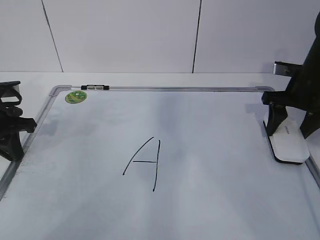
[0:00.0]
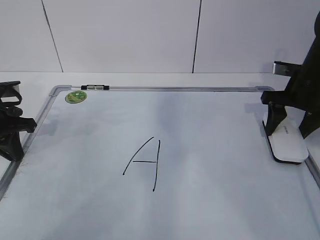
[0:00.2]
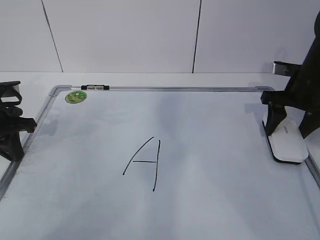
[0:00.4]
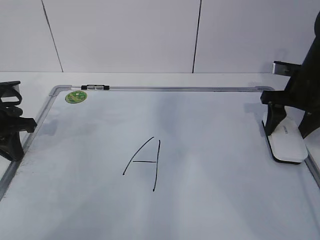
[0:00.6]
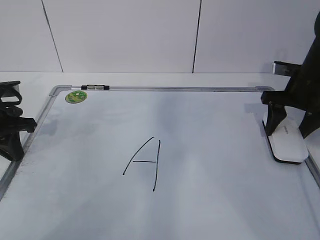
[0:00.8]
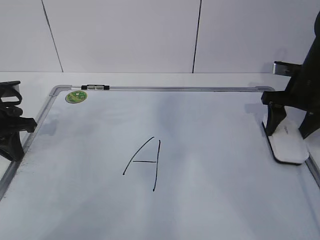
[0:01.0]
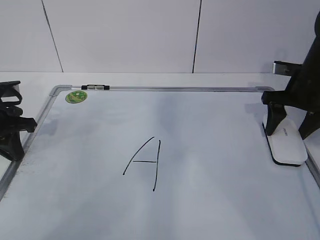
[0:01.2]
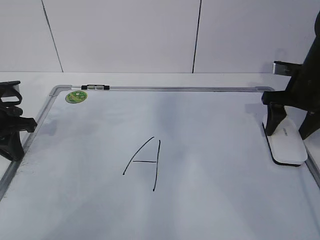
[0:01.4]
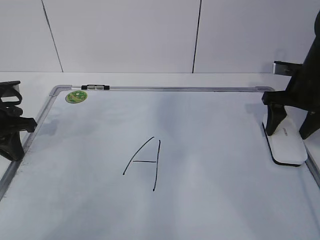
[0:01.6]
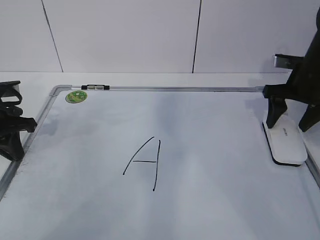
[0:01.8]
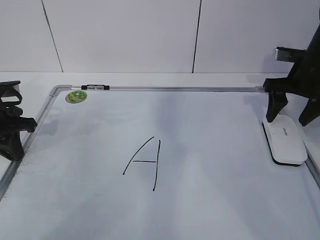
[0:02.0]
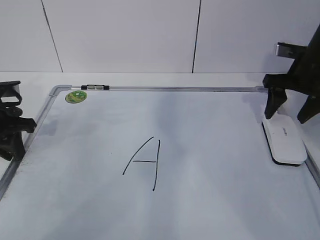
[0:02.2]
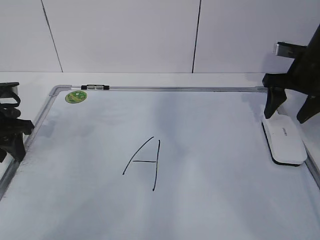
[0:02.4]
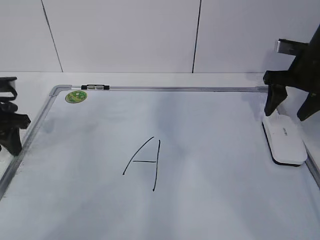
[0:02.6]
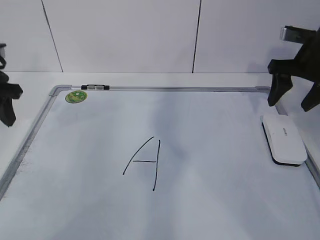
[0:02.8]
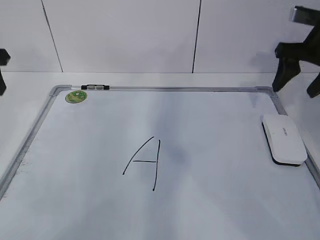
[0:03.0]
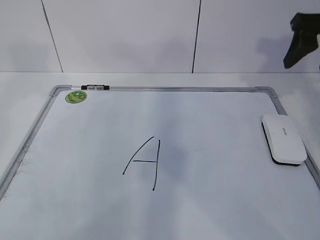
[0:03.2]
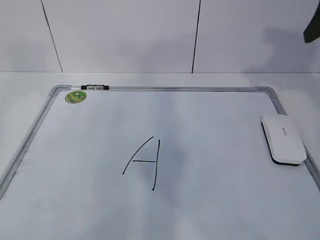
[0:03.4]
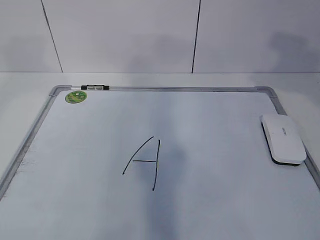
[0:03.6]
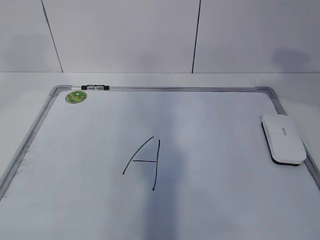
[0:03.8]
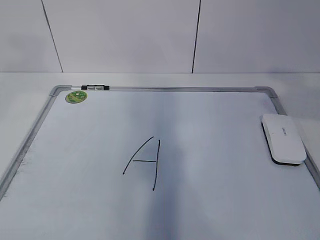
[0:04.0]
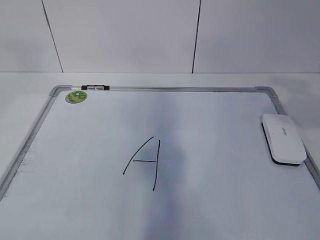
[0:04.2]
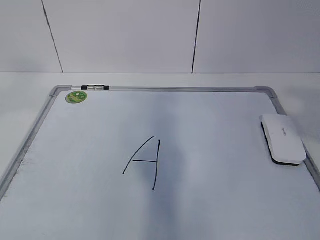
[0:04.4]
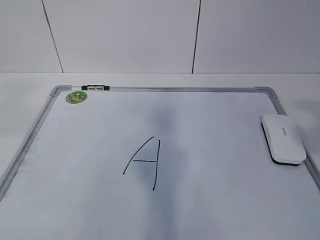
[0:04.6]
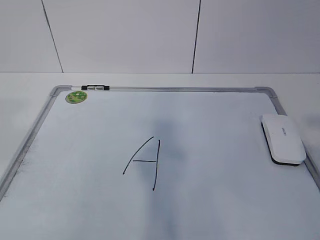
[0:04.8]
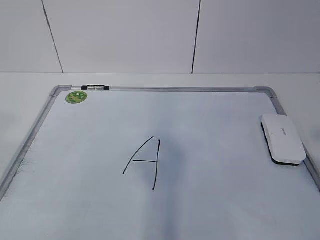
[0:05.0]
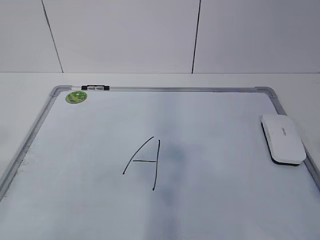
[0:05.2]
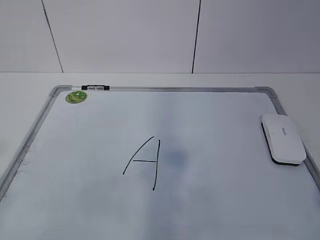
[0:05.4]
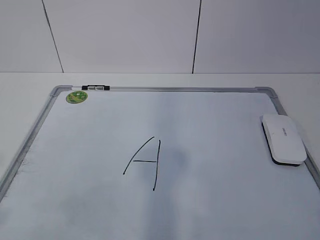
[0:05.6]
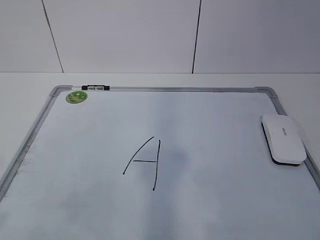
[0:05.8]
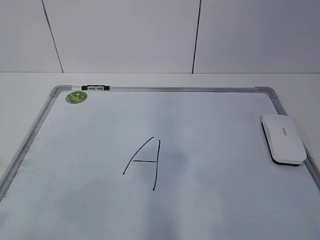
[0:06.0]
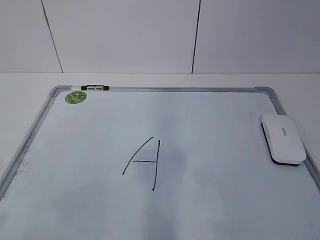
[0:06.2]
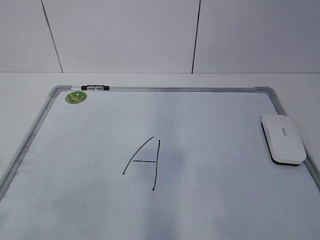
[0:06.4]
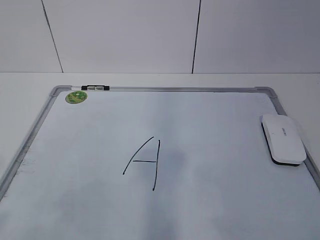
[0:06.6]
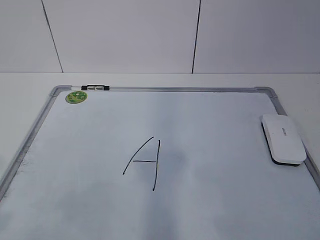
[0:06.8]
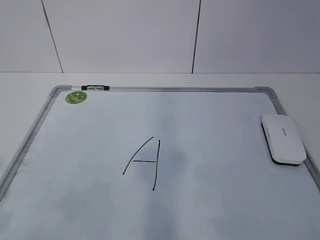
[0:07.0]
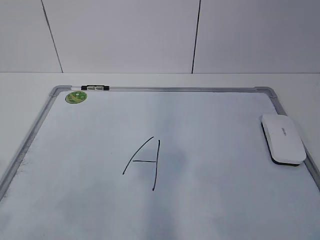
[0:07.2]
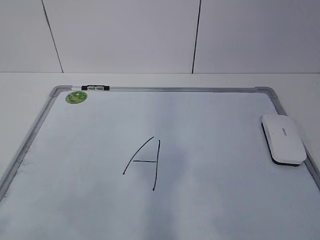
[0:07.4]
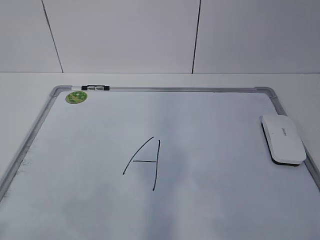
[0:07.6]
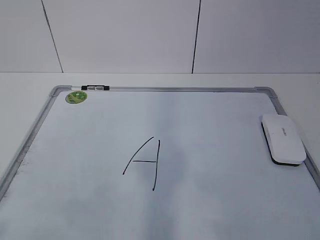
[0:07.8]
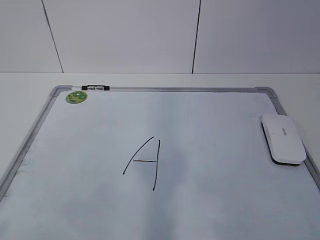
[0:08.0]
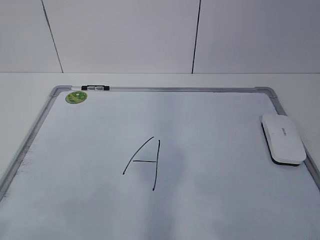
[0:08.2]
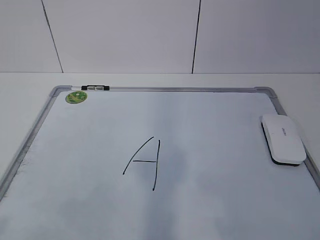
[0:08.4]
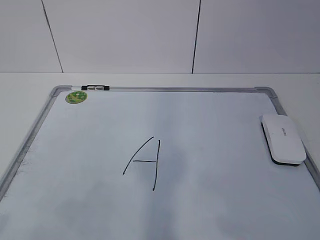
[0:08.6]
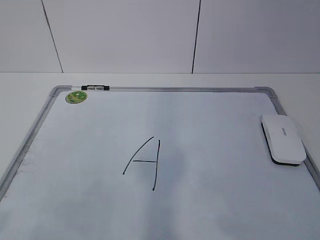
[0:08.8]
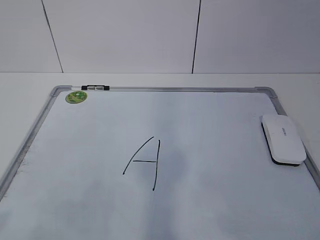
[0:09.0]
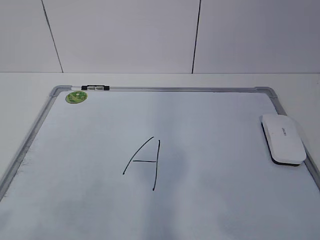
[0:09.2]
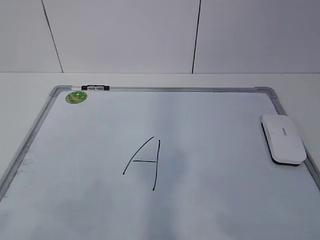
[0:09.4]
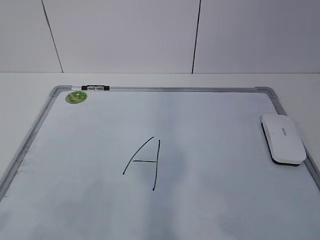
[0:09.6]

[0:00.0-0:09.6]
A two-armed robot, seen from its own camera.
Task of the whole recording: pick up the eraser on the blackboard and erase the letter "a".
0:00.0 to 0:01.6: The right gripper opens its fingers.
0:01.6 to 0:03.2: The two grippers go about 15 cm upward. The left gripper opens.
0:03.2 to 0:04.8: Both grippers travel together backward, some 30 cm.
